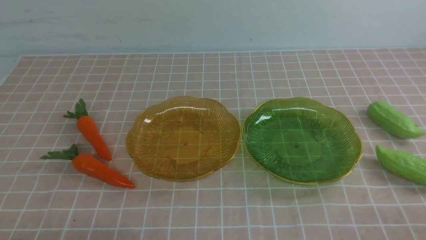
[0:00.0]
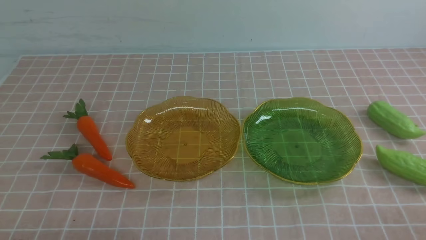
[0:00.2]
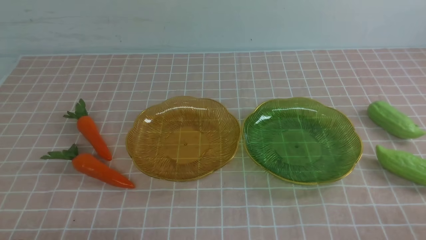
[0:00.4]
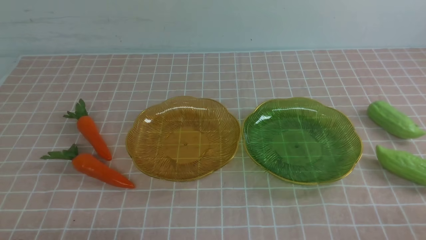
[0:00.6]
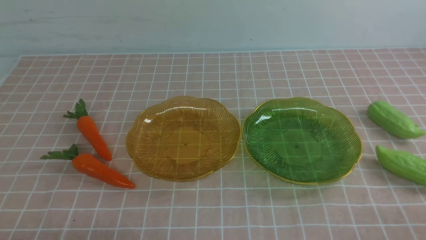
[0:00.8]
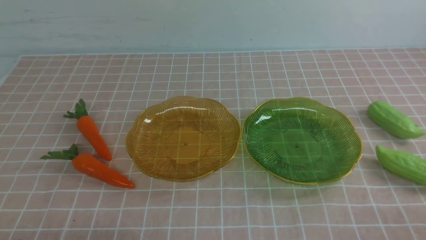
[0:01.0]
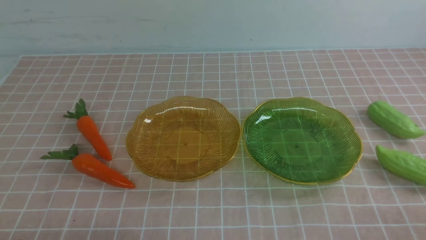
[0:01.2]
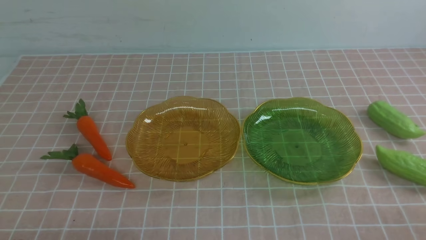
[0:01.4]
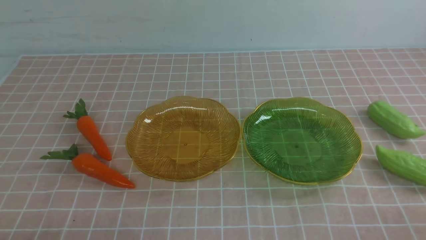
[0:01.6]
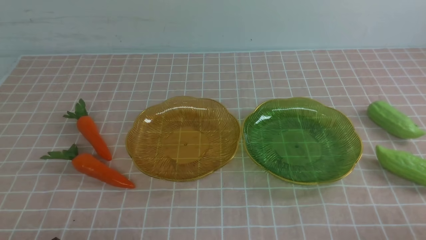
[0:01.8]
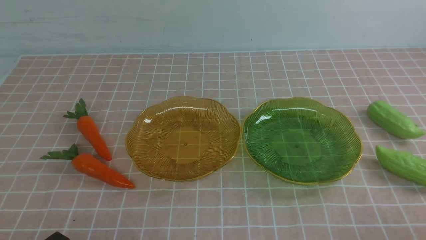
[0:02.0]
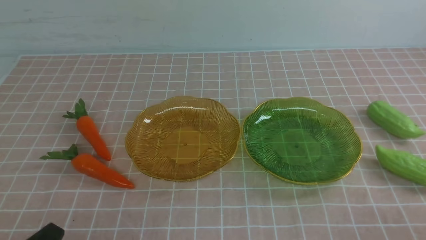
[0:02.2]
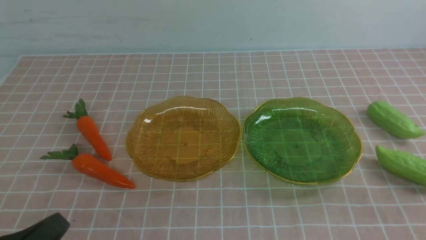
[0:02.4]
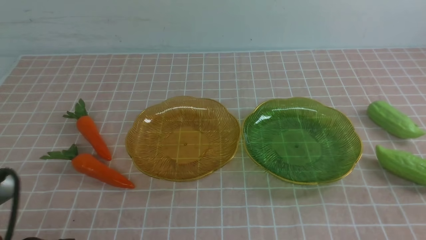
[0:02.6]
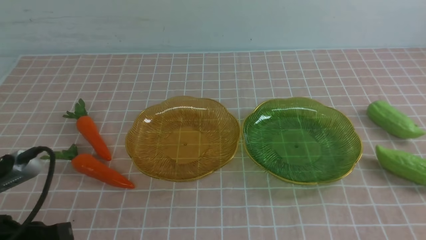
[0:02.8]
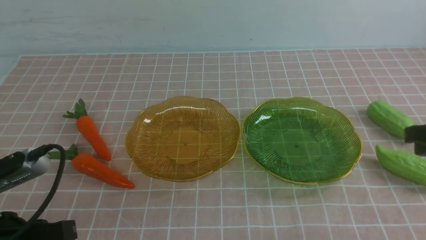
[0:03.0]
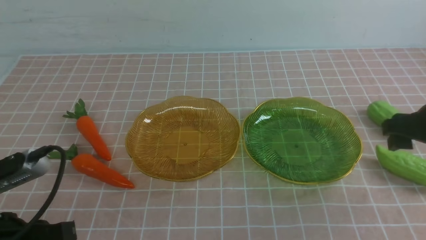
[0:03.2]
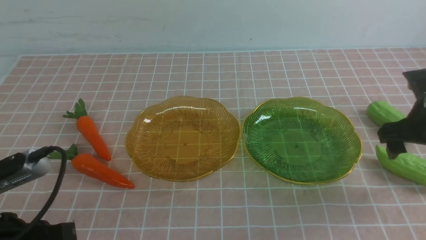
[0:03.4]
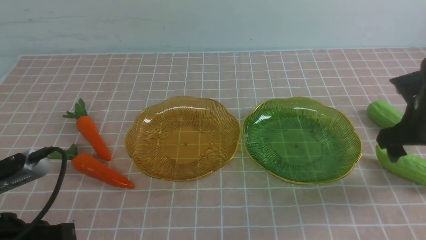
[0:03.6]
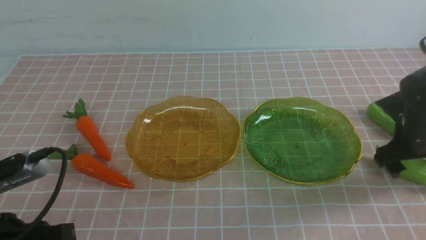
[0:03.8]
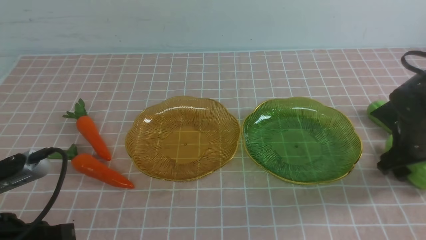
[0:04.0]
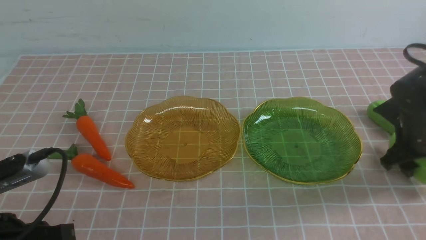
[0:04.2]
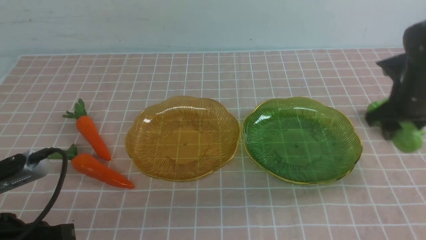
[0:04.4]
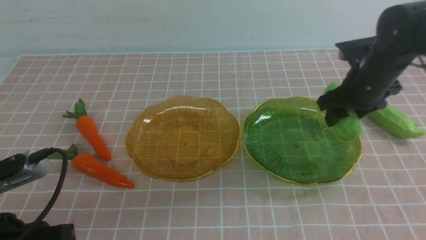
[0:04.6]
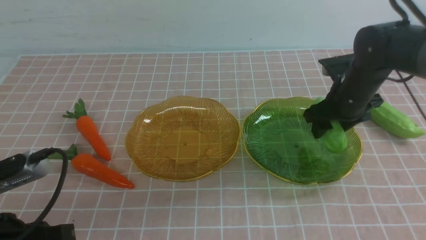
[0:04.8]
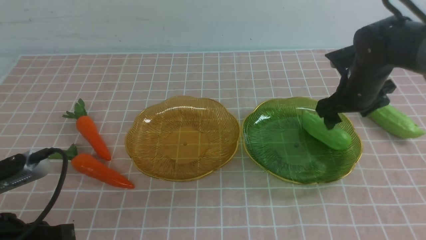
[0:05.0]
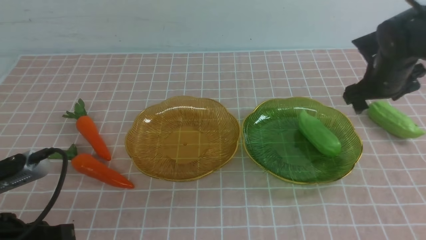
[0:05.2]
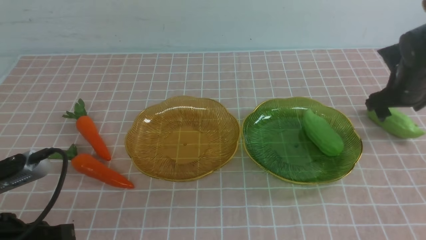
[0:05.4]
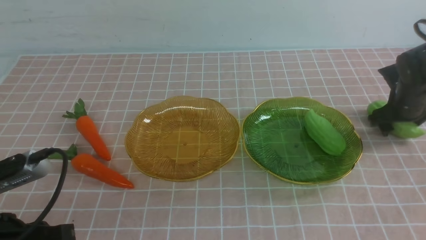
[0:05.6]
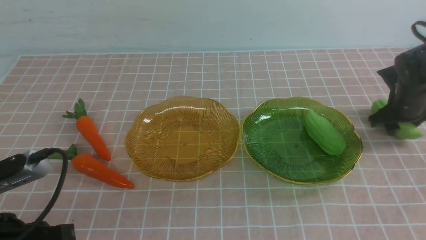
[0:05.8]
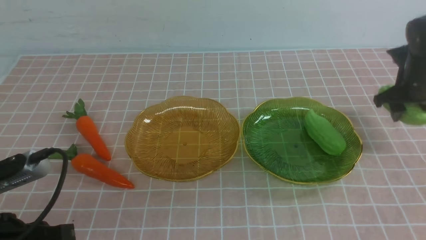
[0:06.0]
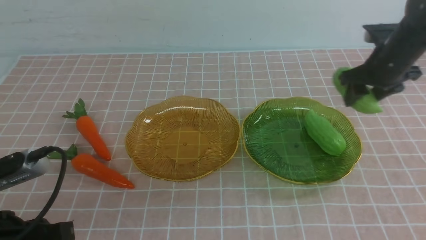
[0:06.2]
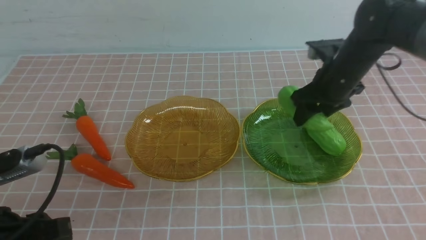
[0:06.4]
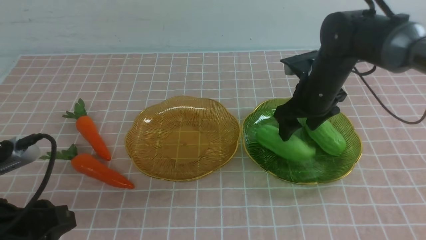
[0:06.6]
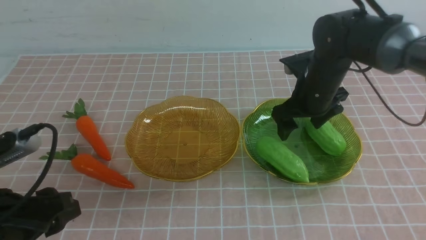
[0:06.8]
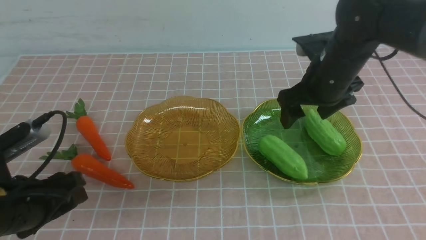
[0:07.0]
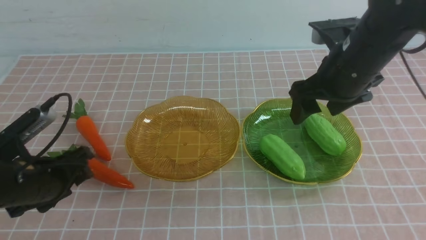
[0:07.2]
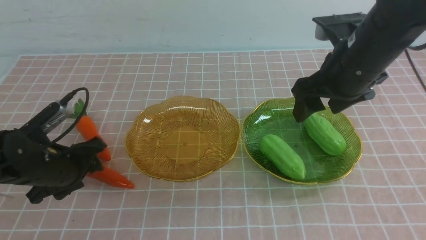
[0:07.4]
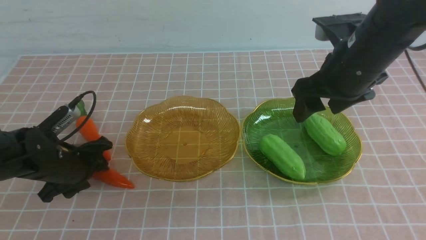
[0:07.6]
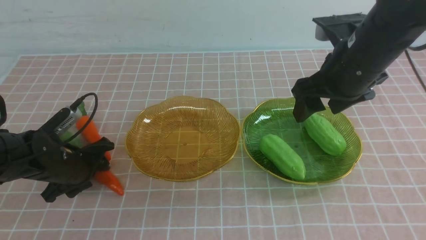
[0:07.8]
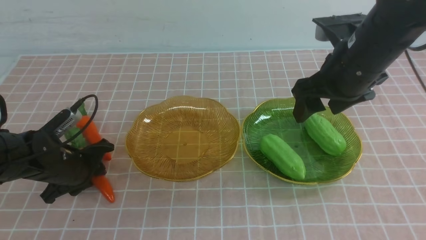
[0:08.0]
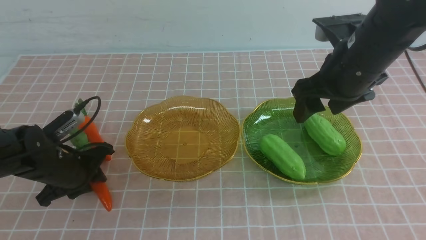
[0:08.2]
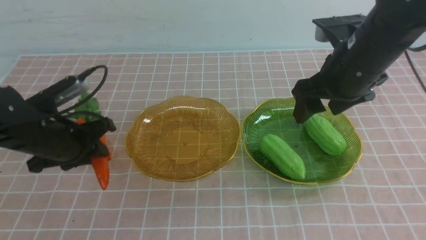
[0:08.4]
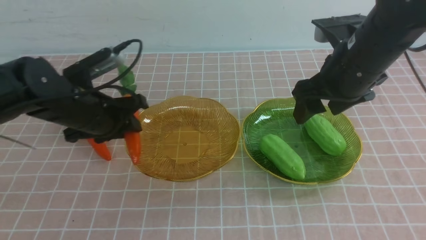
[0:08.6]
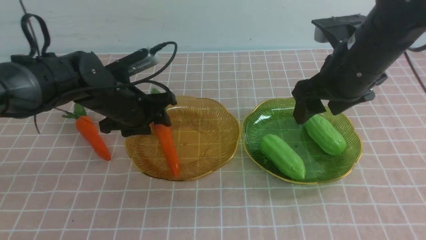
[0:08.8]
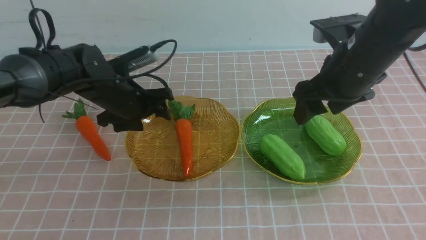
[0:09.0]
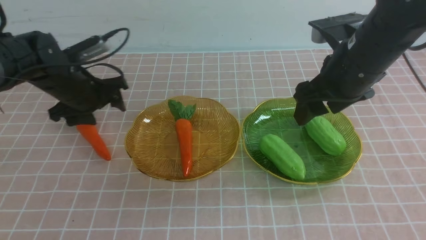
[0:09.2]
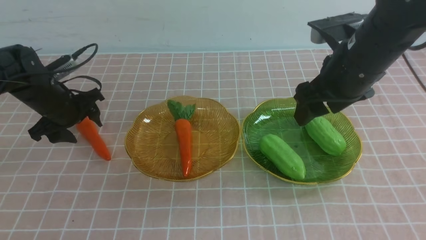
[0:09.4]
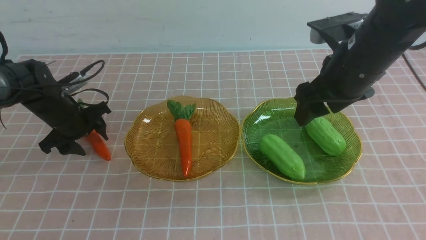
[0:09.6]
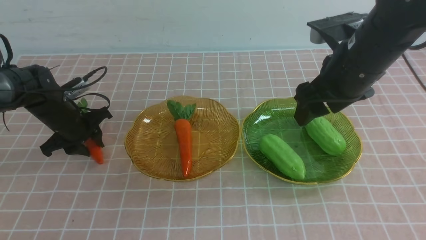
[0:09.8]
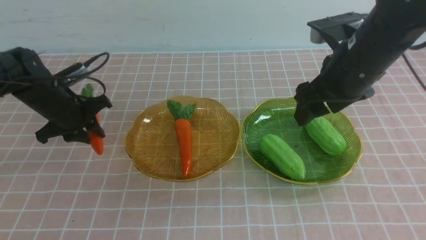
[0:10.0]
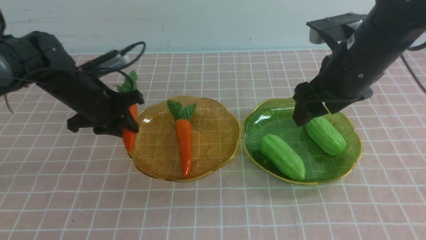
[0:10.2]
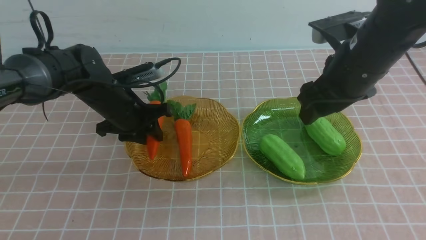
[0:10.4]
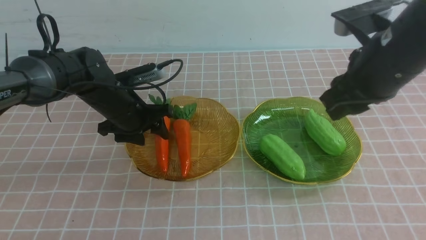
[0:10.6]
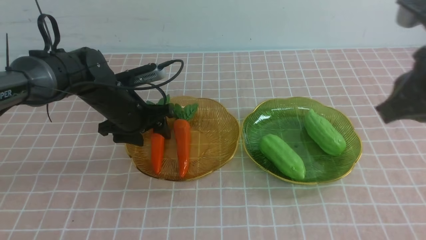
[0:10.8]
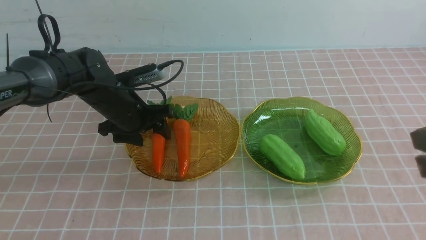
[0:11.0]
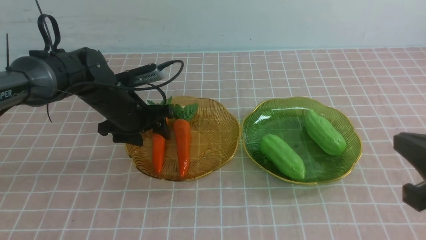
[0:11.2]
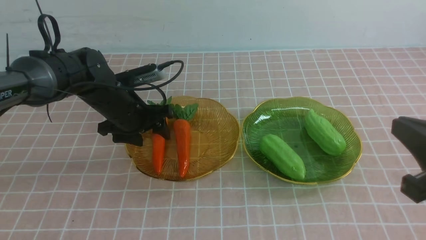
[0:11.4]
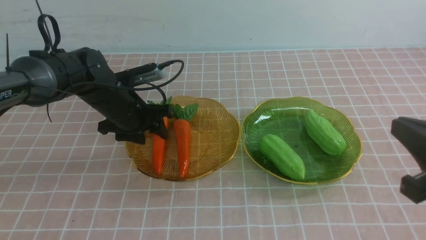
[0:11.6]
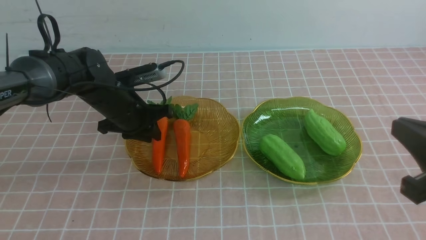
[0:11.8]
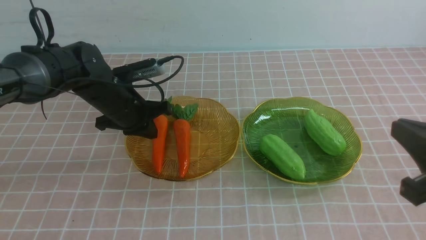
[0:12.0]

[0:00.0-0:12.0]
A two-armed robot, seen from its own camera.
Step, 0:00.0 to 0:06.8: use the right arm to grab a chayote and put it into the right plate.
Step, 0:07.0 to 0:08.8: use the left arm to grab a carrot and put it into the left plate.
Step, 0:09.0 to 0:10.6: use the left arm to grab a carrot and put it into the left plate.
0:01.6 to 0:03.0: The left gripper heads upward and forward, covering about 10 cm.
0:03.0 to 0:04.4: The right gripper travels forward by roughly 20 cm, and opens up.
0:04.4 to 0:06.0: The right gripper heads to the right, covering some 5 cm.
0:06.0 to 0:07.6: The right gripper heads to the left, backward and upward, covering some 20 cm; the left gripper moves forward and downward, some 20 cm, and opens.
0:07.6 to 0:09.0: The left gripper goes approximately 15 cm forward, to the right and upward, and closes, then reopens.
0:09.0 to 0:10.4: The right gripper changes place by some 5 cm, and closes up; the left gripper goes to the left and returns, about 10 cm each way.
0:10.4 to 0:12.0: The right gripper shifts some 25 cm backward, downward and to the right, and closes. The left gripper is displaced upward by roughly 5 cm, and closes.

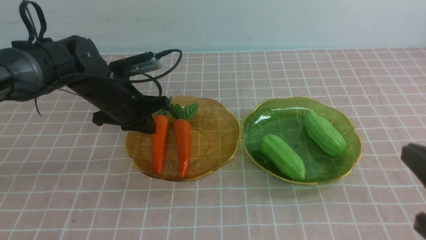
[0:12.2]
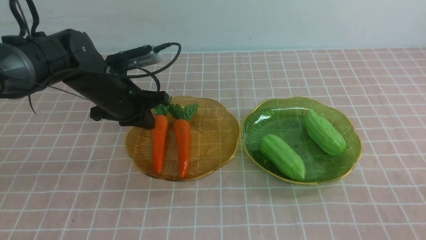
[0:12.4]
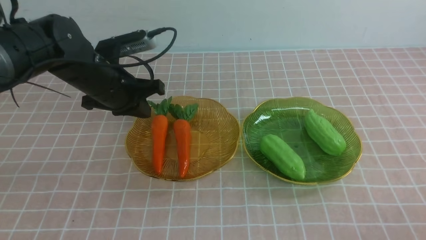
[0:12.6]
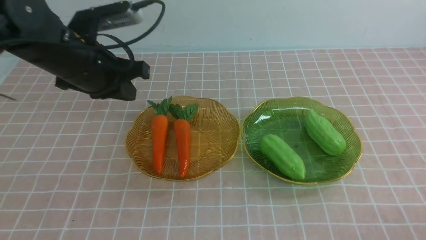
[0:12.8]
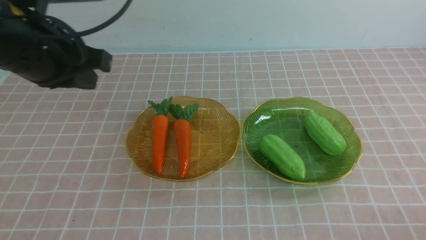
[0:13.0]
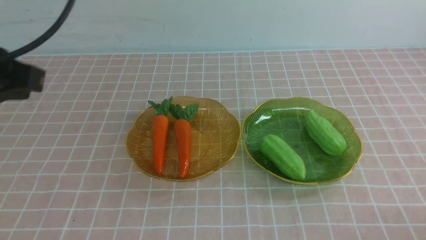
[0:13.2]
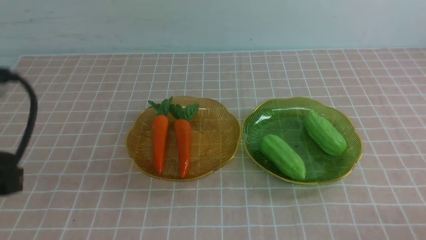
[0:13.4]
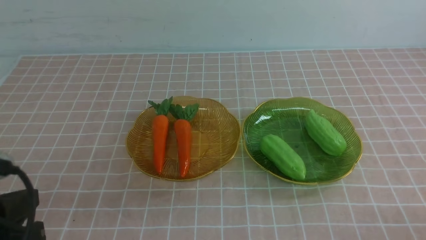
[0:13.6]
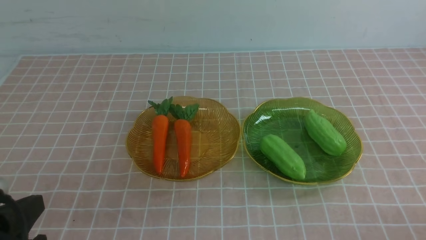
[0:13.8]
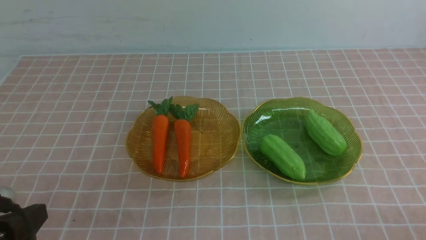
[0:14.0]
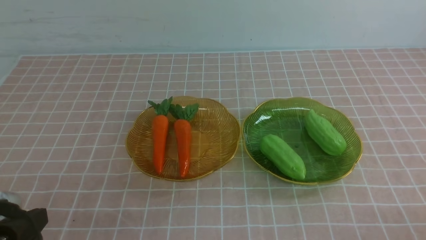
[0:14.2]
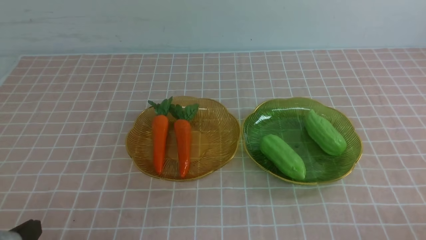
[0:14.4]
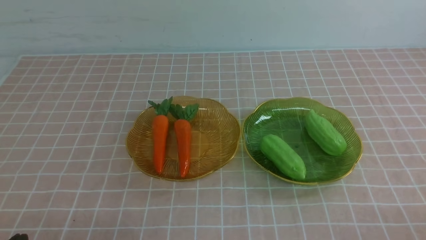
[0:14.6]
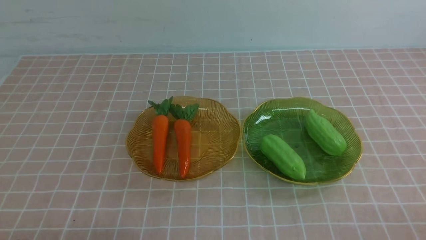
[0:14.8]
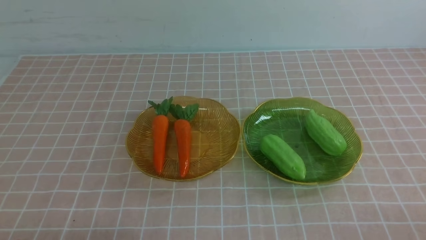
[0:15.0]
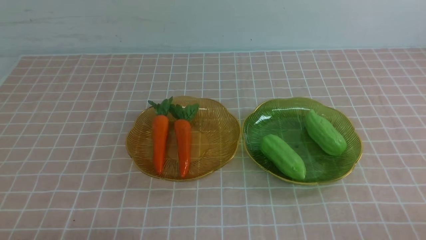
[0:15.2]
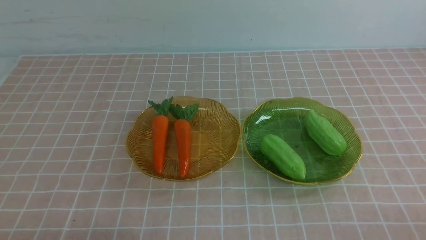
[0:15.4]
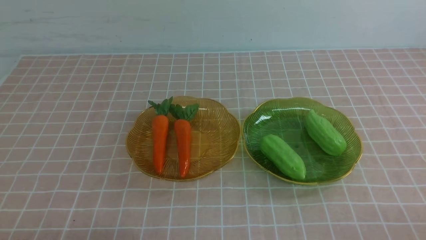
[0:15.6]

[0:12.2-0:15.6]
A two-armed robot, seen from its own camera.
0:12.2 to 0:13.8: The left gripper is displaced backward by about 25 cm.
0:13.8 to 0:15.6: The left gripper goes roughly 10 cm downward.
